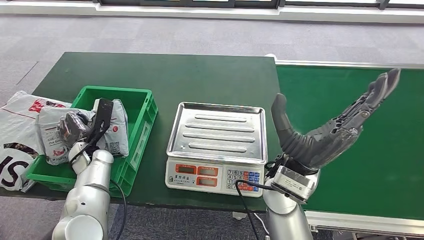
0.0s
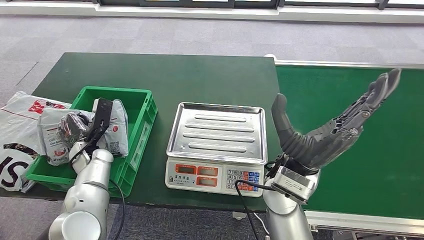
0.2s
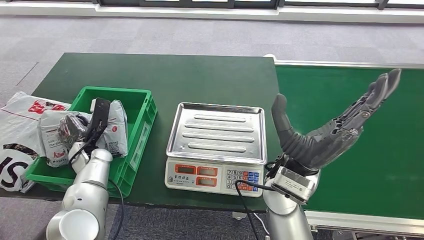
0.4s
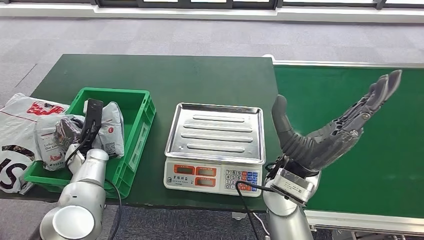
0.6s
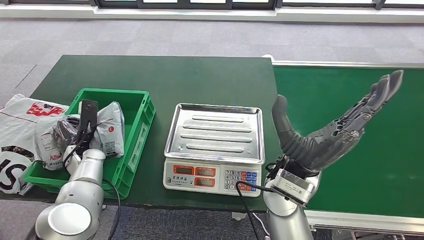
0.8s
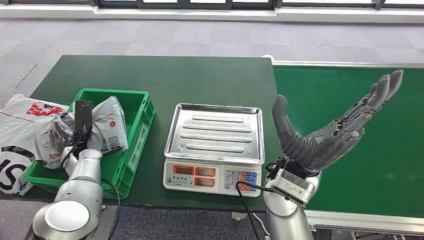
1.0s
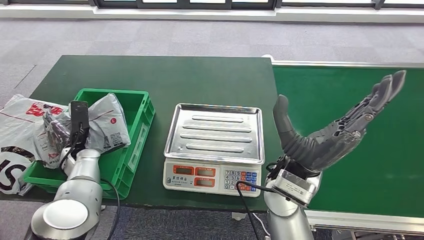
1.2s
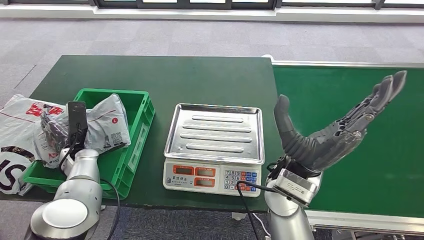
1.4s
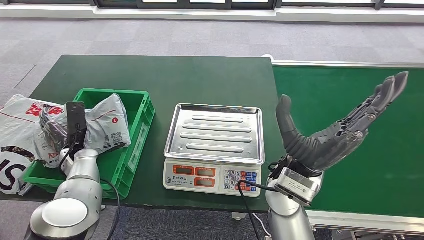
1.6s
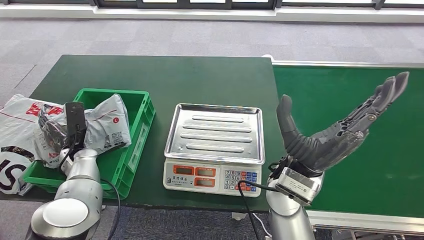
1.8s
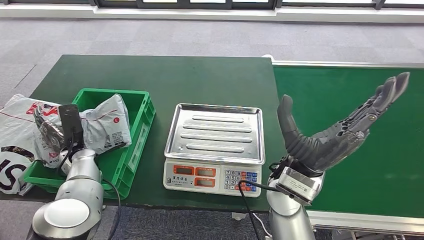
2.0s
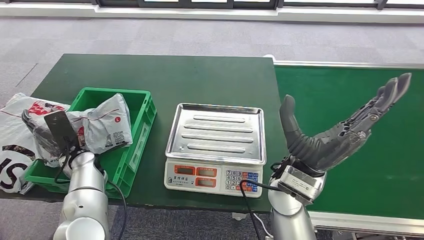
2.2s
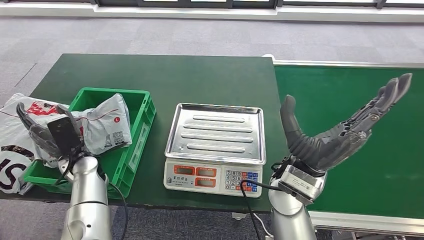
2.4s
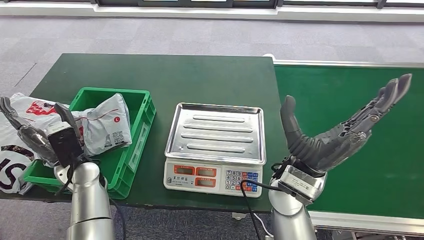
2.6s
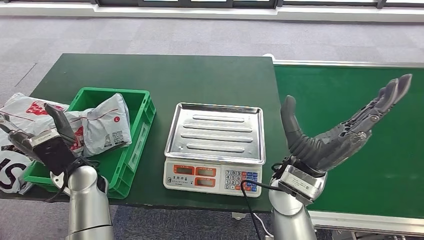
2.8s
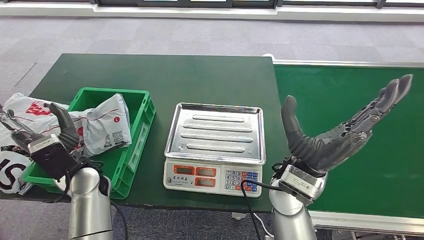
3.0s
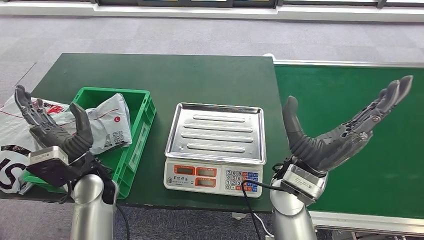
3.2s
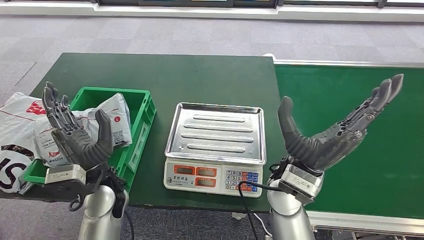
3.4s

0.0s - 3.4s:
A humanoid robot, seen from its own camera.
Step, 0.0s - 3.4s: Place the package into the parcel locker.
